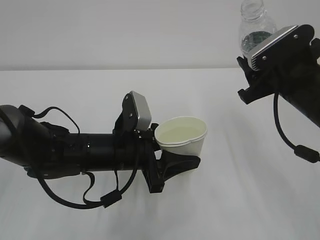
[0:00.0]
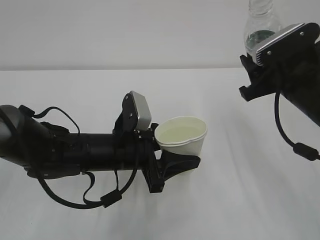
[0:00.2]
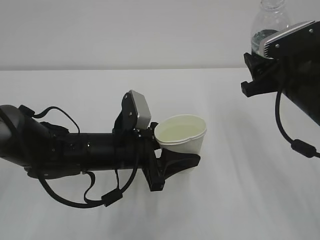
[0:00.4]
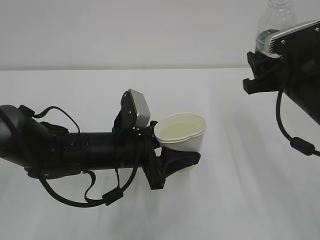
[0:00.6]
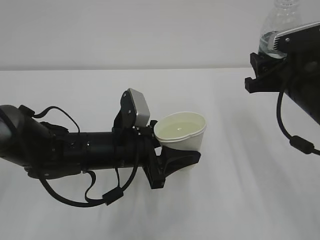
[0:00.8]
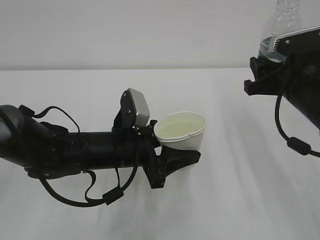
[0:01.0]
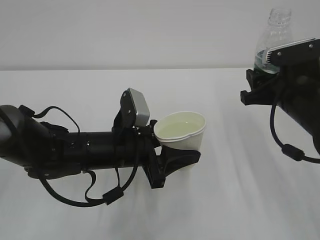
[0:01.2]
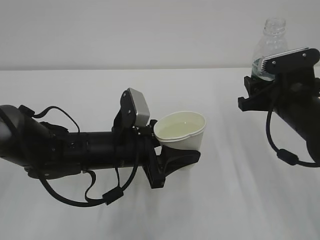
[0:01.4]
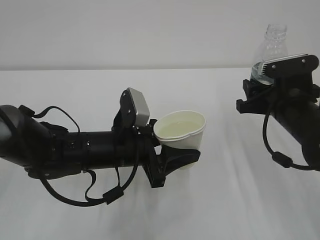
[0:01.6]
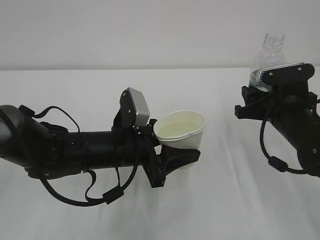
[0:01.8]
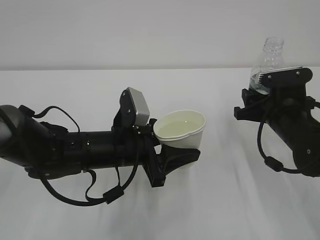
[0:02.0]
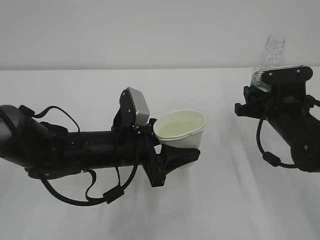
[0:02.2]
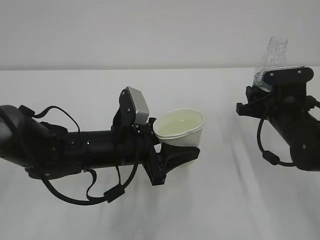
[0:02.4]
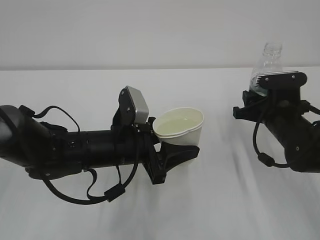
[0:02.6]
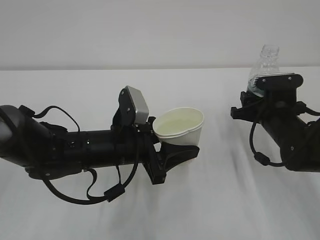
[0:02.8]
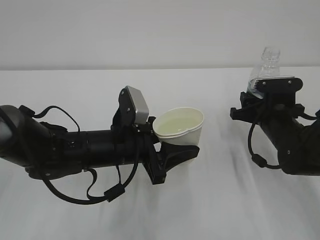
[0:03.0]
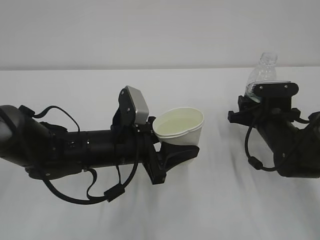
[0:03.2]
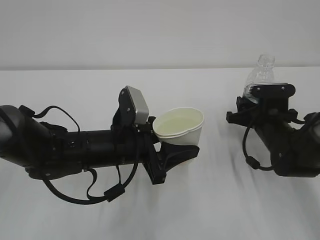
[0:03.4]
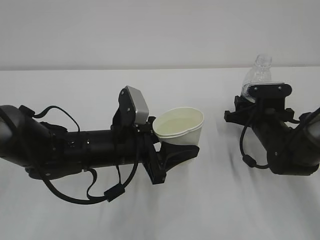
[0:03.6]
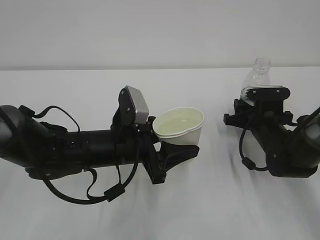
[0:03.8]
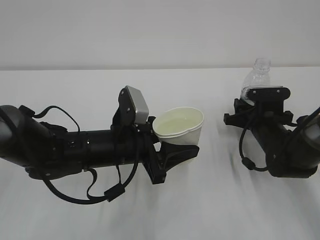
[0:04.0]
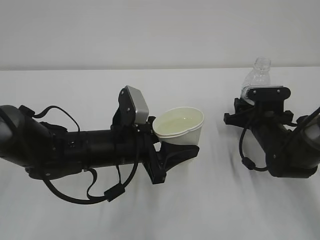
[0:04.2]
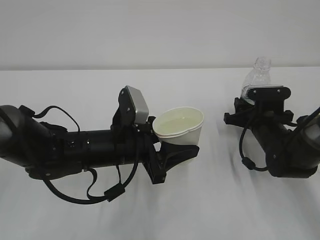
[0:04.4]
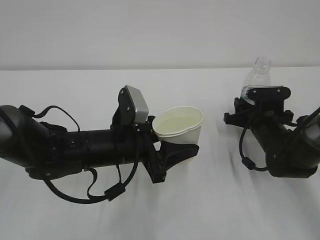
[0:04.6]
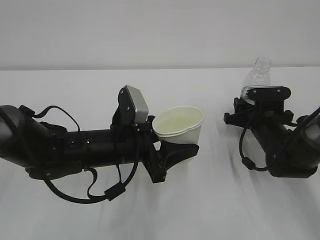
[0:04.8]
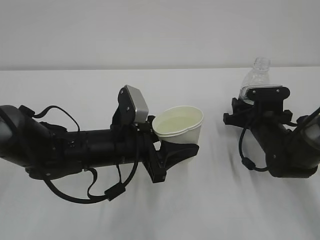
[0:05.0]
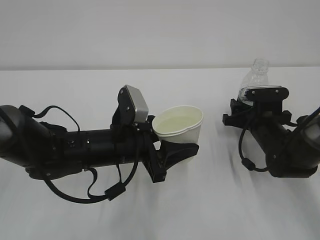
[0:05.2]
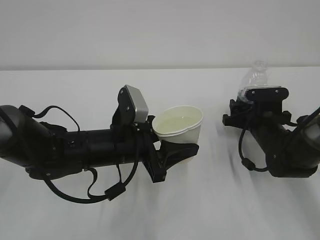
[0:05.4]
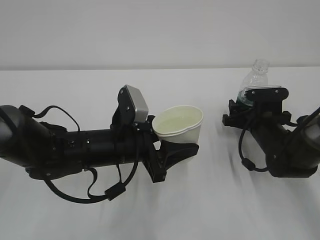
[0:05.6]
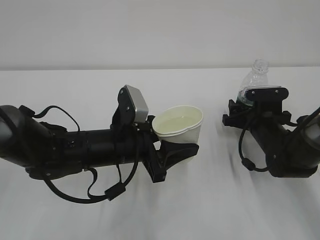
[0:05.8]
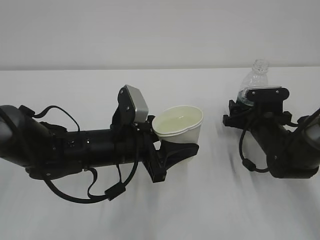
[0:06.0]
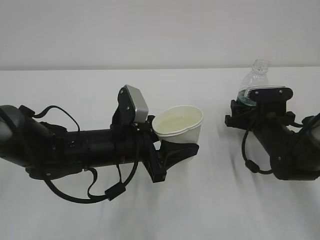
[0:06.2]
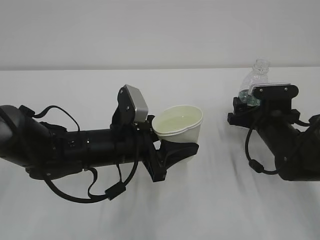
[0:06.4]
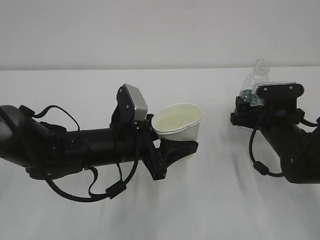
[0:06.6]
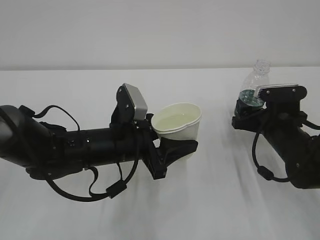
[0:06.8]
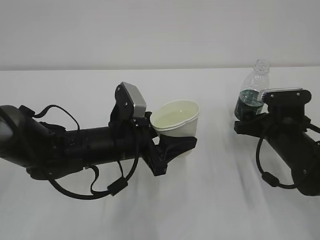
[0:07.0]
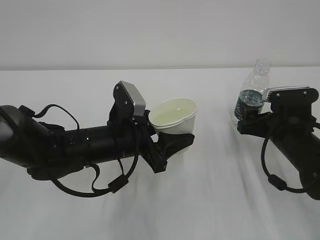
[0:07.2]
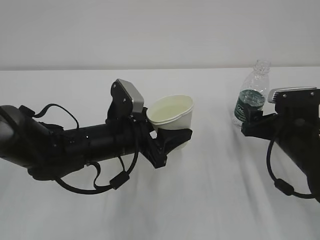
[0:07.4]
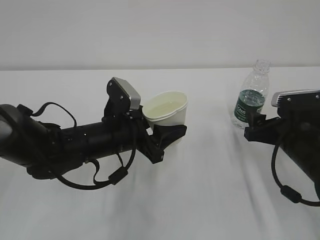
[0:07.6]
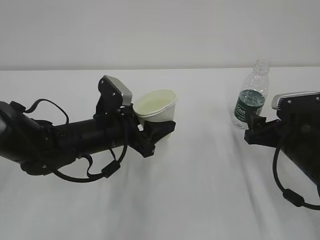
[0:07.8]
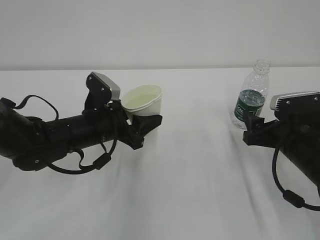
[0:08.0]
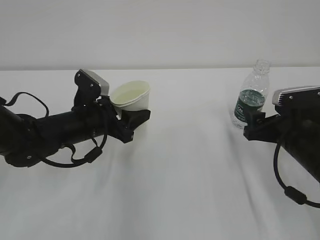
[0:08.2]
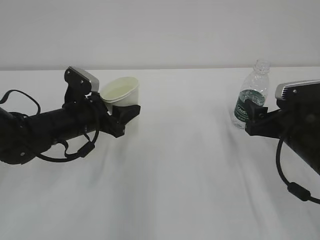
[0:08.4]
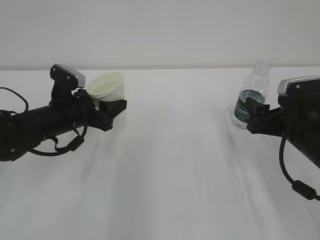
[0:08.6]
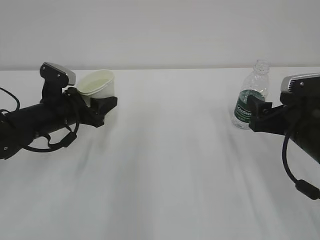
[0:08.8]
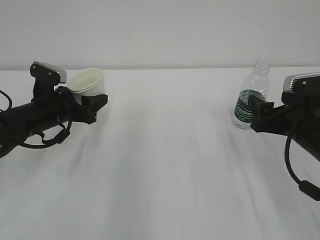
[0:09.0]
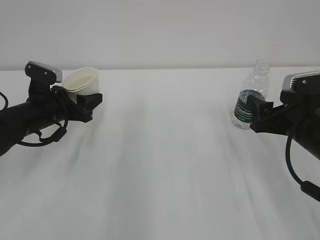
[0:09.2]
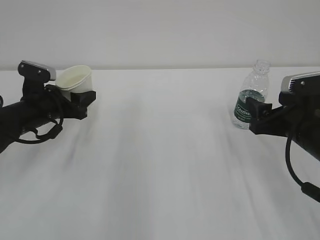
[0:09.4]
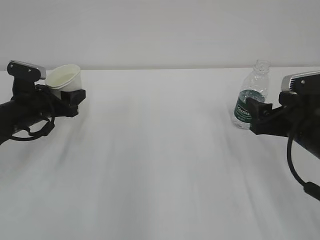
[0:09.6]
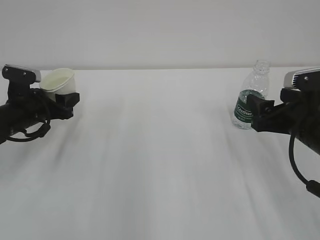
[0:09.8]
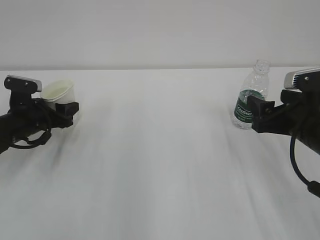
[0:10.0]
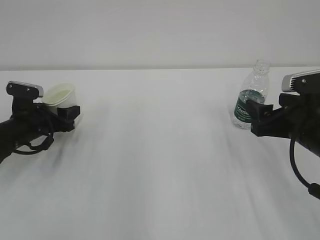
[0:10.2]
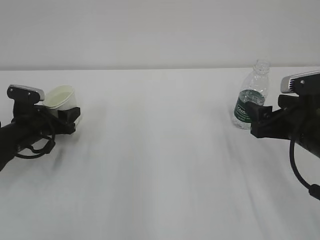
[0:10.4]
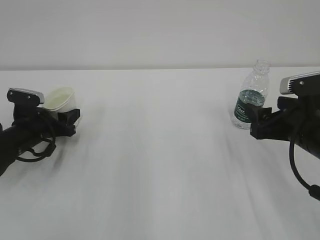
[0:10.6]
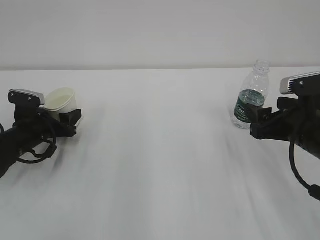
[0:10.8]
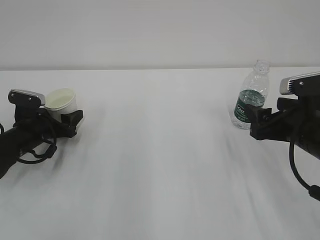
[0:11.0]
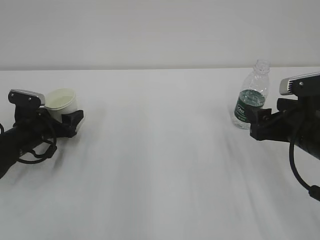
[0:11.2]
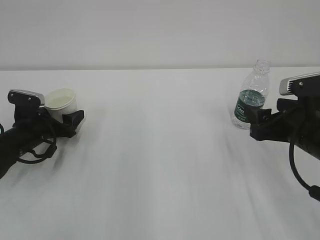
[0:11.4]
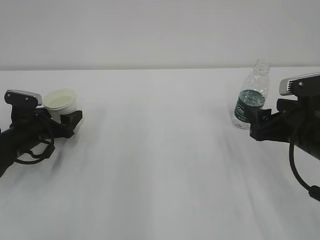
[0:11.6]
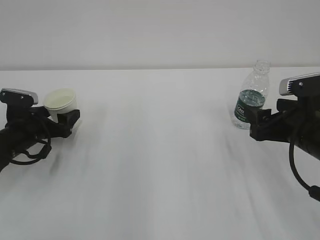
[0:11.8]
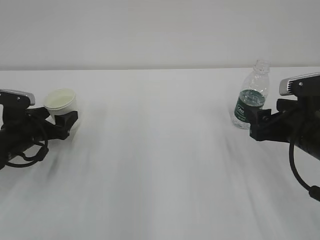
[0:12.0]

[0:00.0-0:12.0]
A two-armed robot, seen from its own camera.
0:00.0 to 0:01.6: The right gripper shifts roughly 5 cm downward.
0:01.6 to 0:03.0: The right gripper moves downward, about 5 cm.
0:03.0 to 0:04.4: The grippers make only small movements.
0:04.4 to 0:06.0: The right gripper opens up.
0:06.0 to 0:07.6: The right gripper travels backward by about 10 cm.
0:07.6 to 0:09.0: The left gripper travels to the left and forward by approximately 15 cm.
0:09.0 to 0:10.4: The left gripper moves downward and to the left, approximately 10 cm.
0:10.4 to 0:12.0: The left gripper opens.

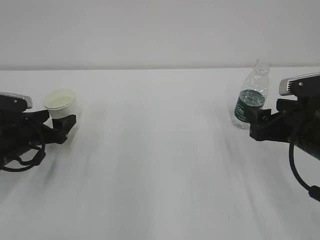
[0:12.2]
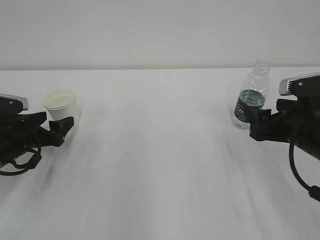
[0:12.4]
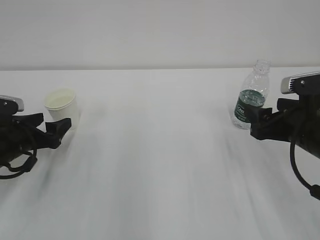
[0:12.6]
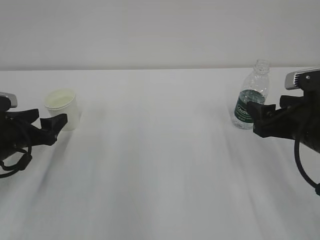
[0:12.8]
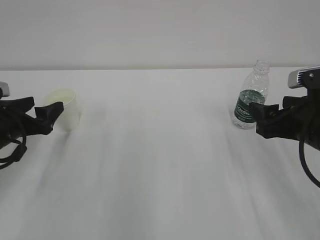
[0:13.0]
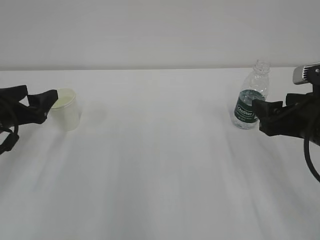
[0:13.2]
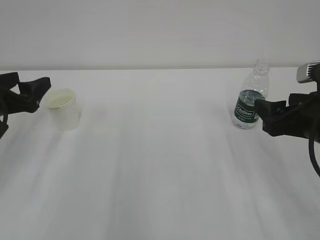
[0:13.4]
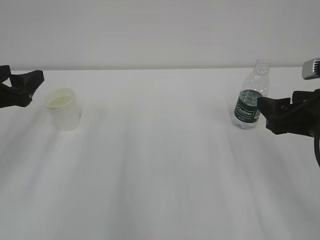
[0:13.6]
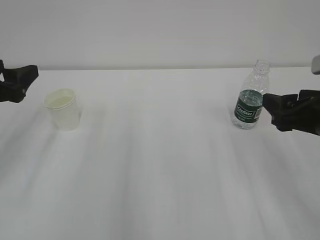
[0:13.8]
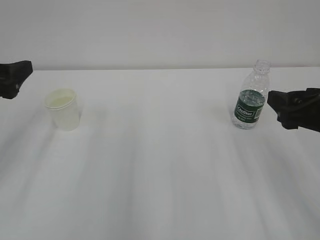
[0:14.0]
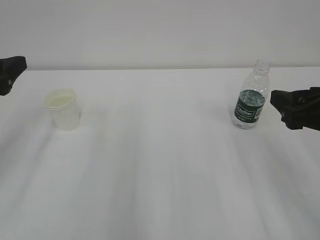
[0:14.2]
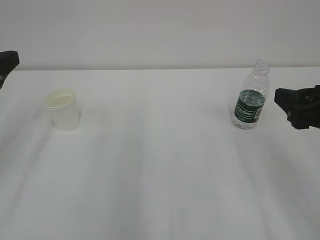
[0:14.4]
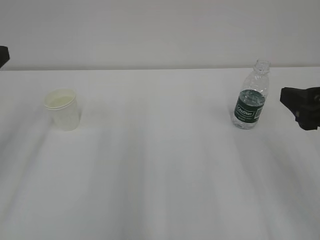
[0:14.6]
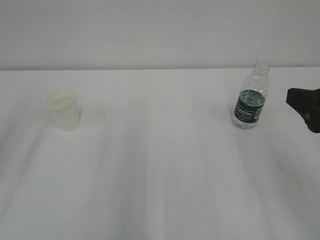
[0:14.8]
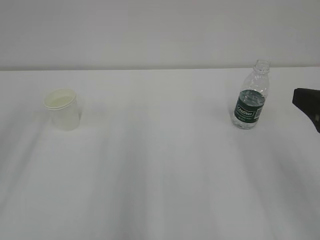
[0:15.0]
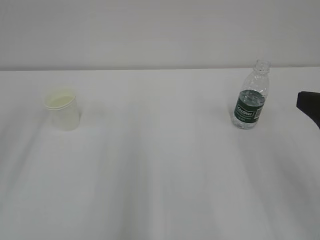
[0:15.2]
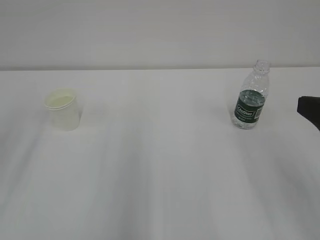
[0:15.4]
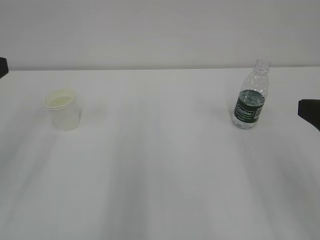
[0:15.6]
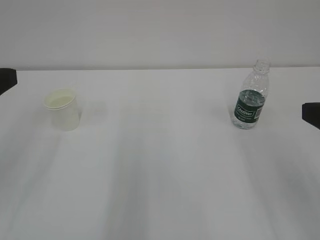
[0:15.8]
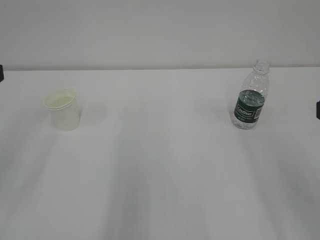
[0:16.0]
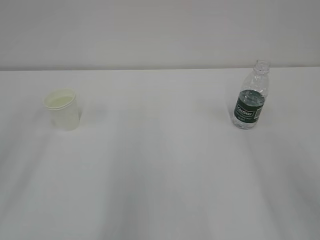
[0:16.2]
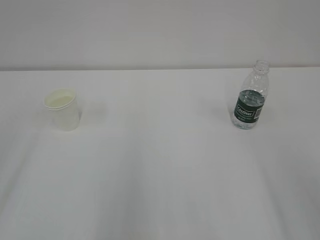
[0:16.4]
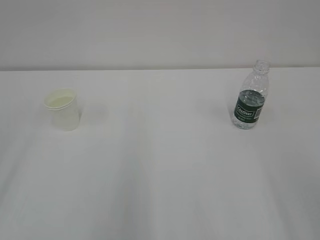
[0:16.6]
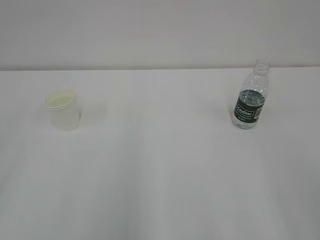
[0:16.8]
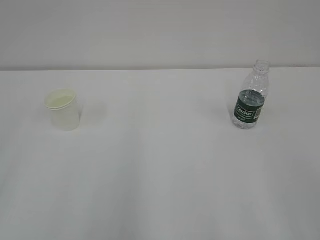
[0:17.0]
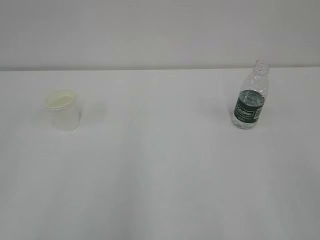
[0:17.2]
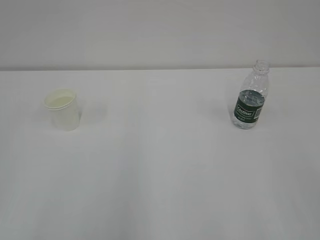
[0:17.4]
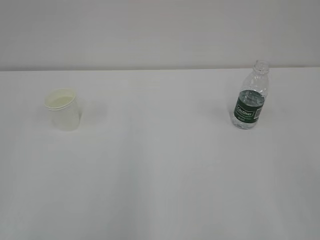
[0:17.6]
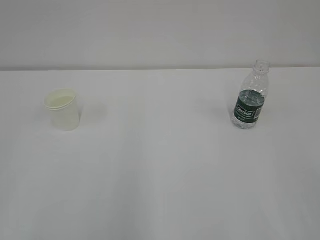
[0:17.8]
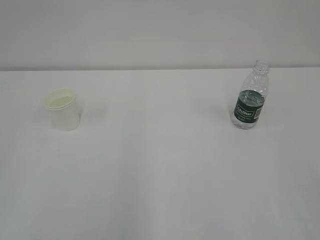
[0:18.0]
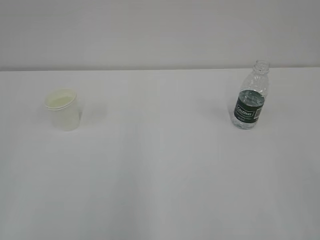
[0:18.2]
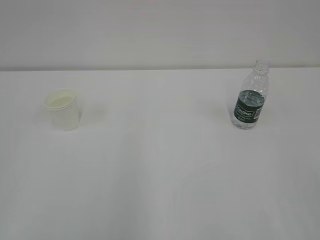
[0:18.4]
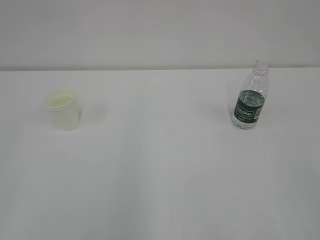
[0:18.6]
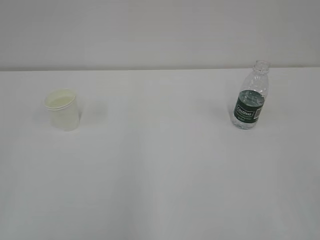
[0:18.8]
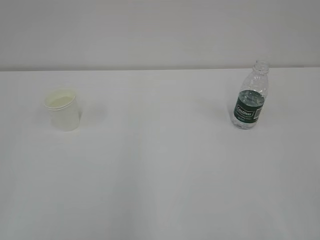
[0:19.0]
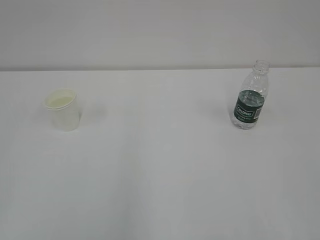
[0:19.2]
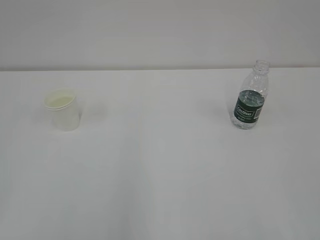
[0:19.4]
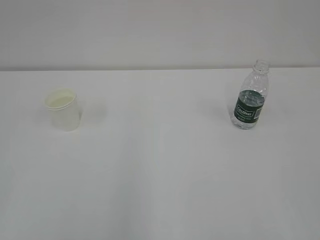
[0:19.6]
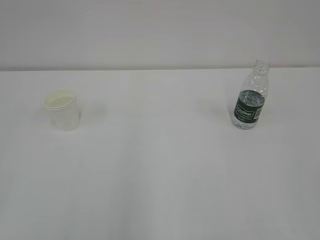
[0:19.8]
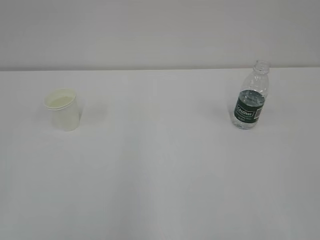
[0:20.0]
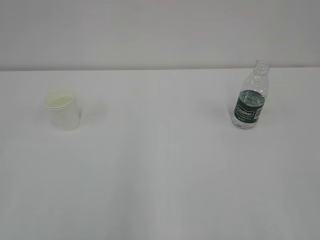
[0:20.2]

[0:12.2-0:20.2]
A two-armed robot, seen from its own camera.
0:12.2 to 0:13.8: The left gripper travels upward by some 15 cm; the right gripper goes about 5 cm upward.
0:13.8 to 0:15.4: The two grippers go roughly 10 cm backward and upward.
0:15.4 to 0:17.0: The right gripper goes about 10 cm backward.

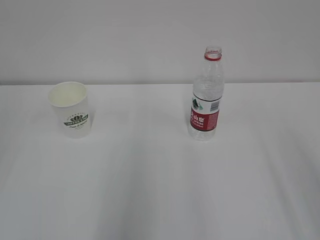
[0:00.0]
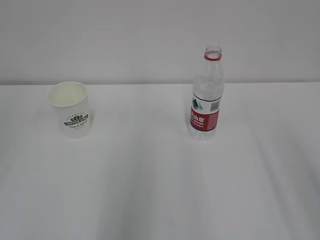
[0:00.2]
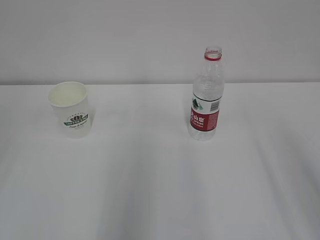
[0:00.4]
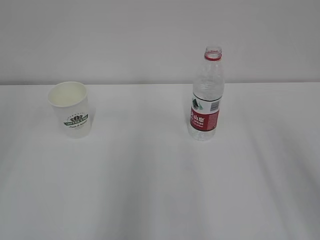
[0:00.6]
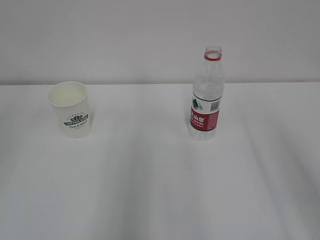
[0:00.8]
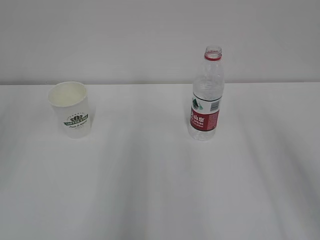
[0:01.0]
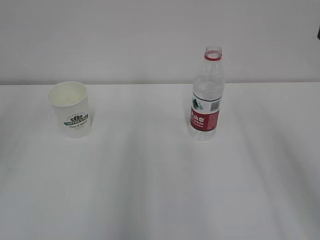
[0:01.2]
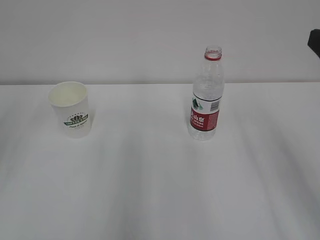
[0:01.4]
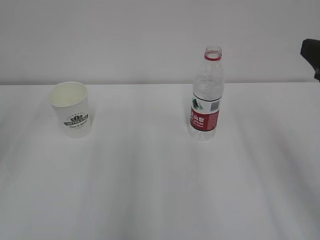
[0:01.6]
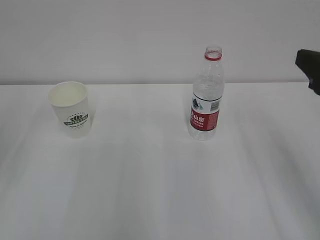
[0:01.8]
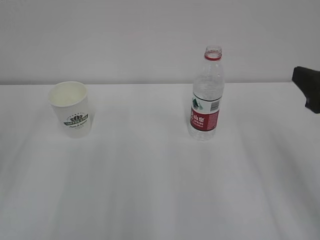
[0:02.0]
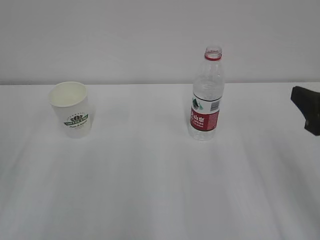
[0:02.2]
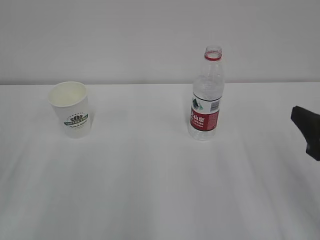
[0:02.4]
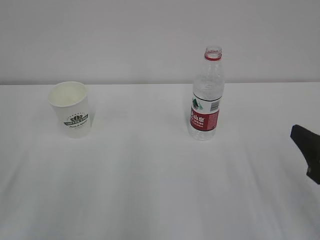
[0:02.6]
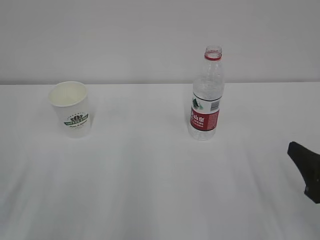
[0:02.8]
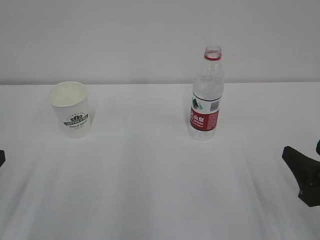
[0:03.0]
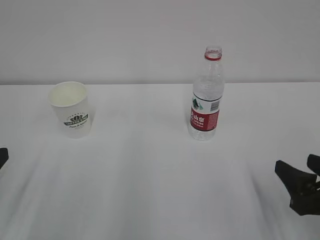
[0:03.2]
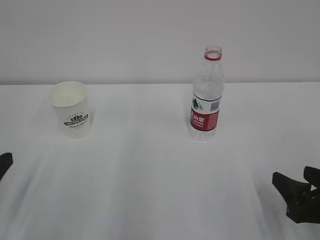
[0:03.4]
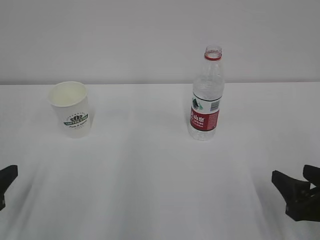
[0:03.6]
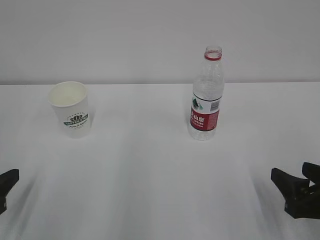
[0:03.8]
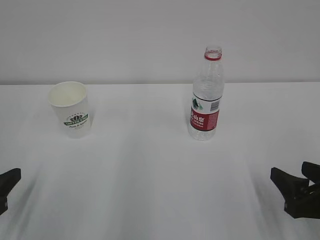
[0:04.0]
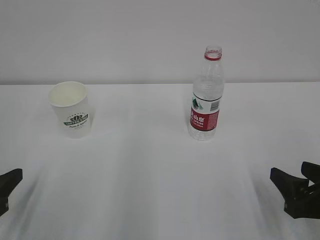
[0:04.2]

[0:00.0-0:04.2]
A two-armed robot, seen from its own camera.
0:01.4 to 0:02.8: The right gripper heads downward and backward, covering roughly 15 cm.
0:02.8 to 0:04.2: The right gripper heads downward, covering some 5 cm.
